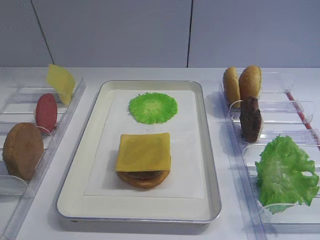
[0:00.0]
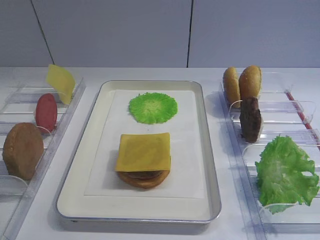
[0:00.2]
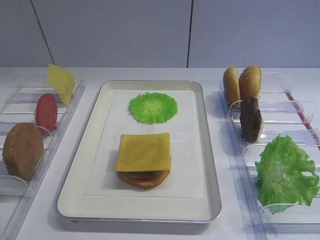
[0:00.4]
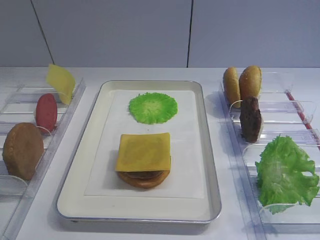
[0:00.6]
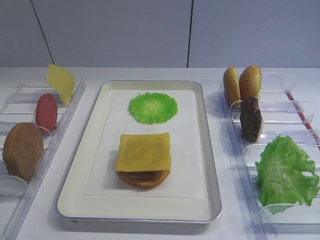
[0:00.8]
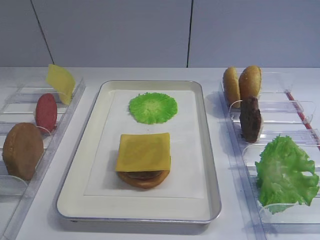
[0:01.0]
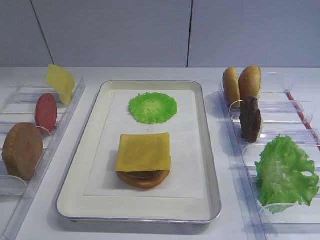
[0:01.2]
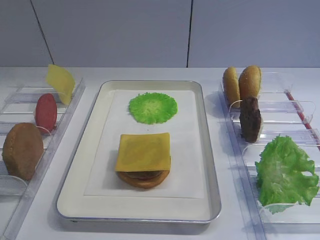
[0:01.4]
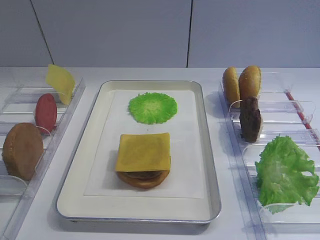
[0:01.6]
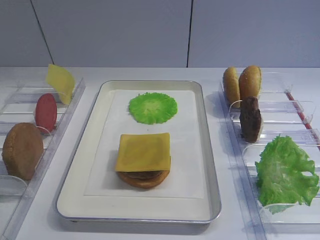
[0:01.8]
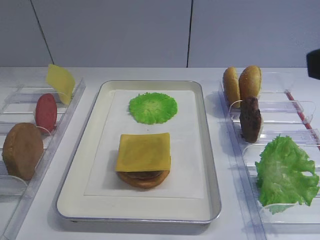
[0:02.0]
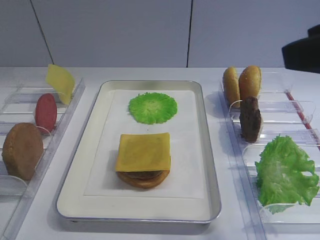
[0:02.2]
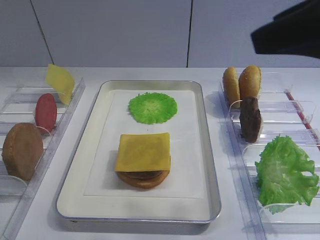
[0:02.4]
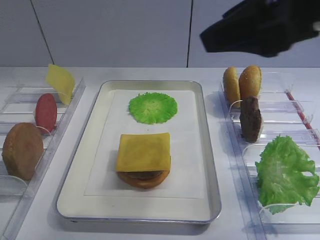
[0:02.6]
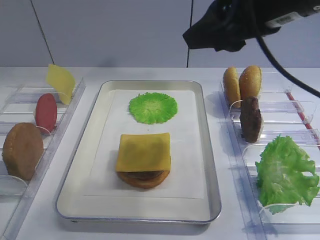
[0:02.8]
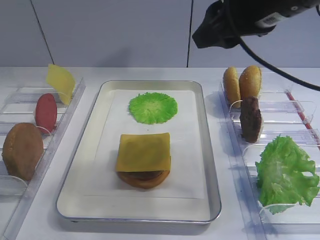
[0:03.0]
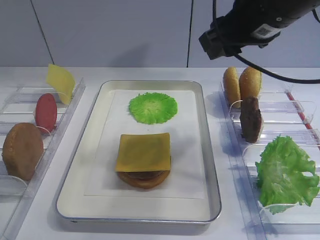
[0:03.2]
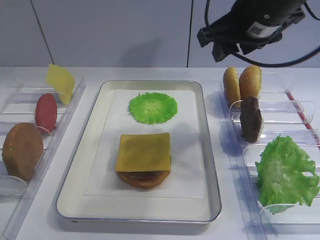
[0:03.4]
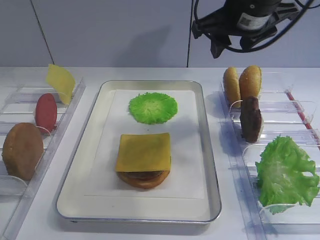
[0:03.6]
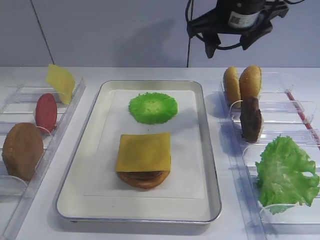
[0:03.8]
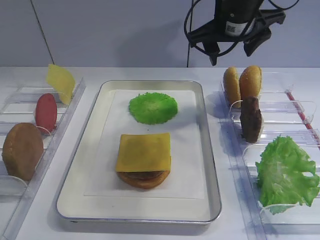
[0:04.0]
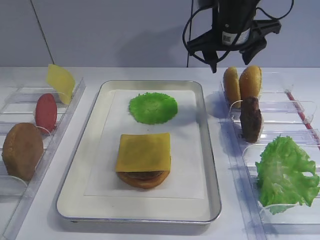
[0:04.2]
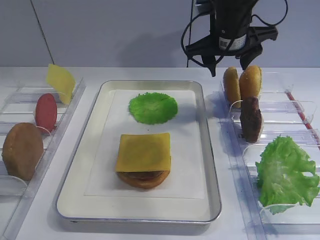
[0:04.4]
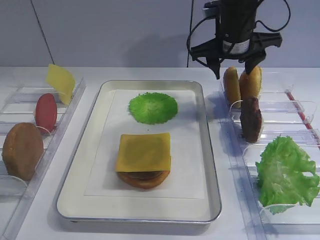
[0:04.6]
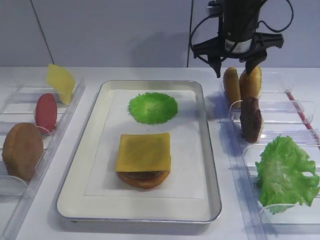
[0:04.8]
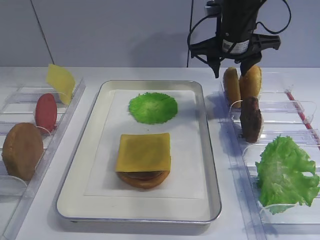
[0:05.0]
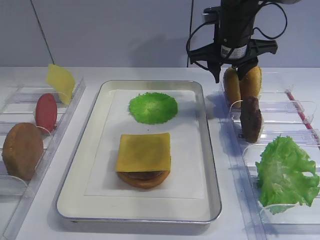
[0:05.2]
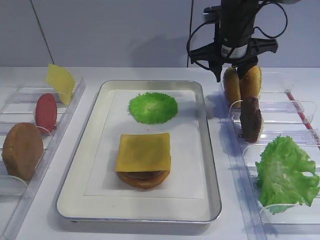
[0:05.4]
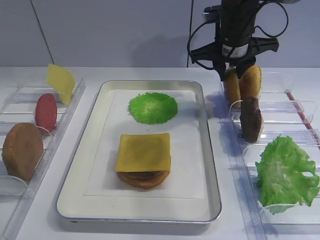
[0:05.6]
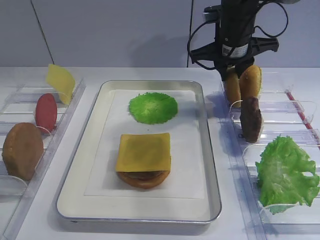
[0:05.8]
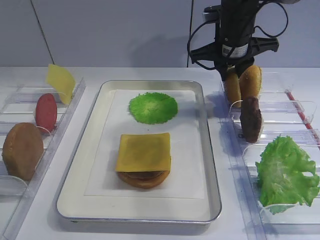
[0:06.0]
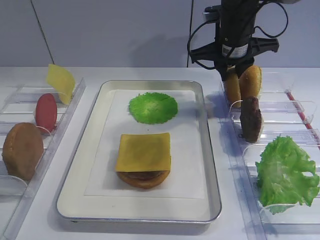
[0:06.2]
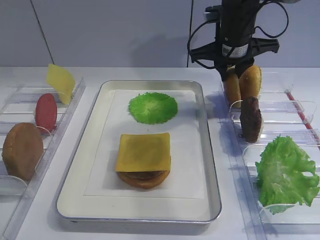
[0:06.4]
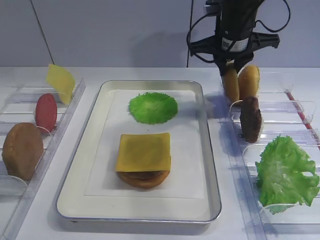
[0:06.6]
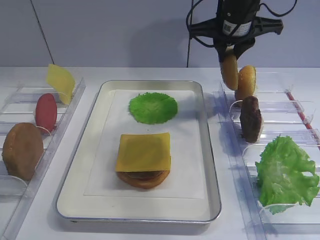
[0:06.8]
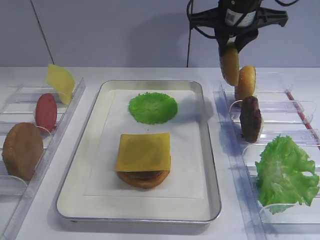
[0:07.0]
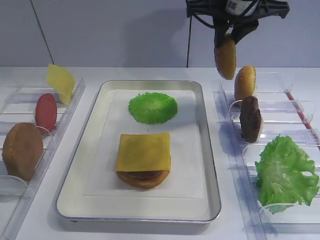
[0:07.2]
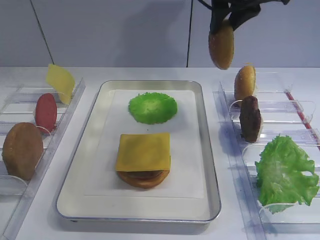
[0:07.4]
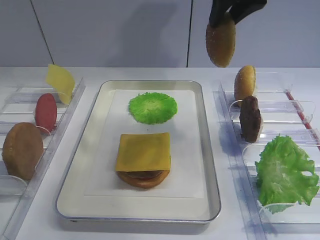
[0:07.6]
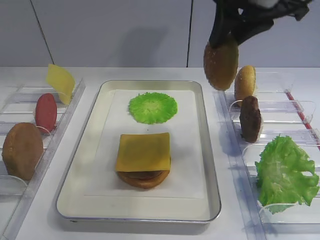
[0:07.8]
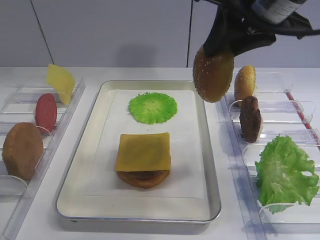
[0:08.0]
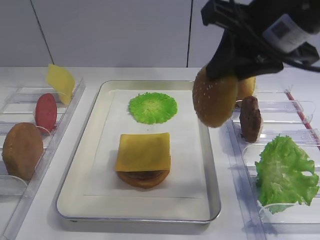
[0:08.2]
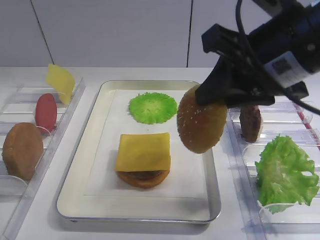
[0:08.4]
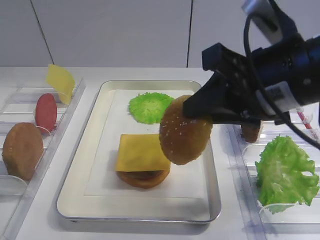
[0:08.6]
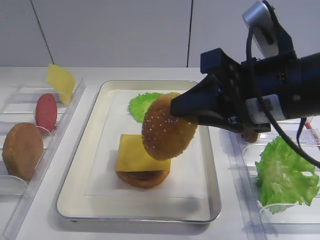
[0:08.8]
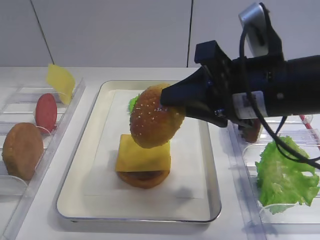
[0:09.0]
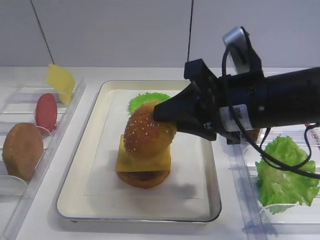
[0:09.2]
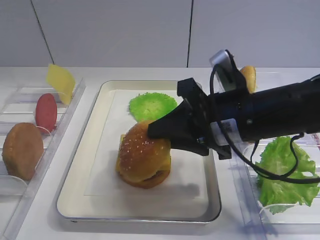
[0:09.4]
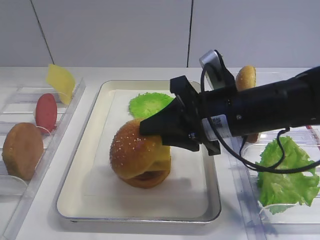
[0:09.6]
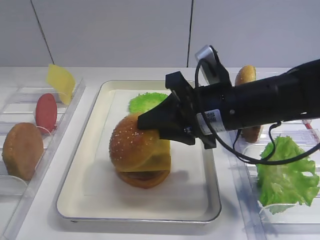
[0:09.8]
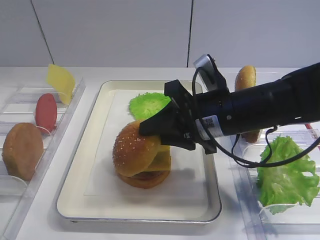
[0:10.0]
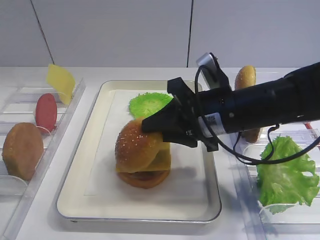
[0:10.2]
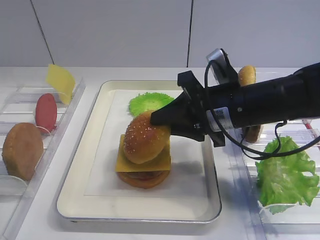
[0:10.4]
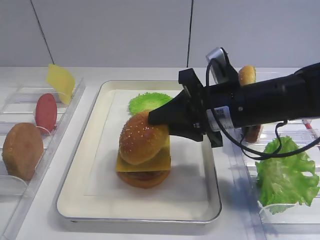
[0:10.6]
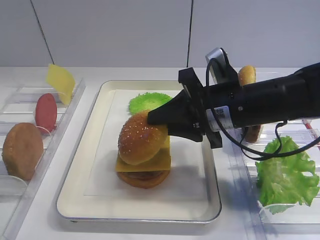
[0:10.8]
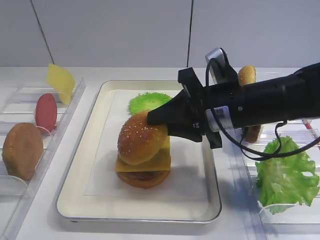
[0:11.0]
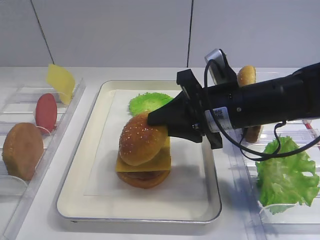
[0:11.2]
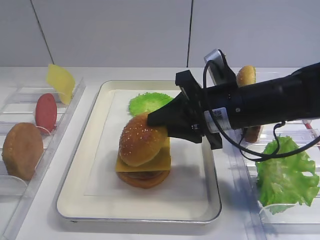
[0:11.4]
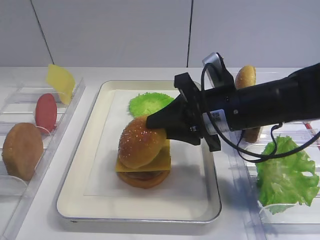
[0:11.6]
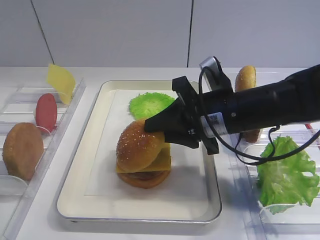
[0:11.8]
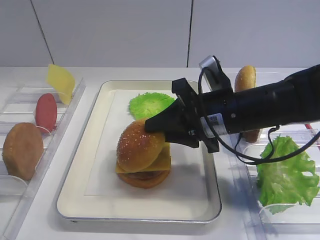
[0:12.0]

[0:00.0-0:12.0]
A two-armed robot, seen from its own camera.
Step, 0:00.0 to 0:07.0: Pick up the hamburger lid with the right gripper.
0:01.6 to 0:03.0: The right gripper shifts approximately 25 cm forward and to the left.
0:03.0 to 0:04.4: The right gripper heads forward and downward, covering about 15 cm.
0:04.4 to 0:06.0: The right gripper closes up.
0:06.0 to 0:07.6: The right gripper goes roughly 15 cm upward and backward.
0:07.6 to 0:09.0: The right gripper heads backward and downward, covering about 20 cm.
0:09.0 to 0:10.4: The right gripper moves downward and forward, roughly 10 cm.
0:10.4 to 0:12.0: Both grippers stay about where they are.

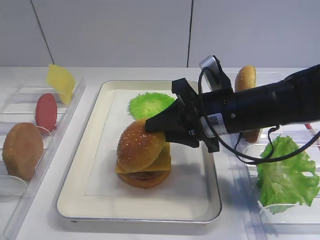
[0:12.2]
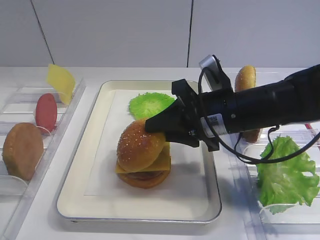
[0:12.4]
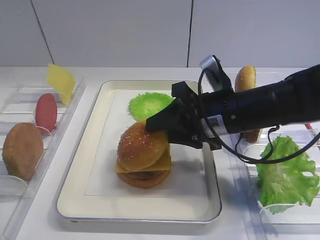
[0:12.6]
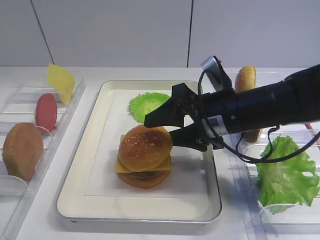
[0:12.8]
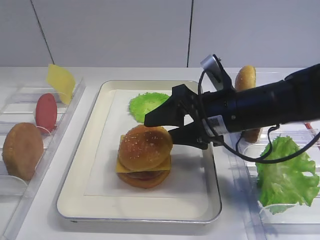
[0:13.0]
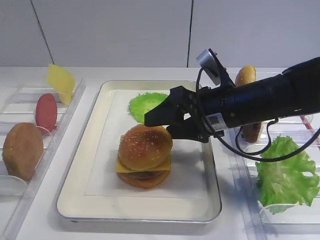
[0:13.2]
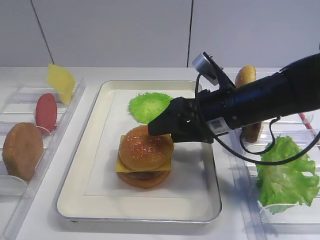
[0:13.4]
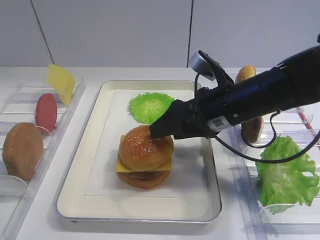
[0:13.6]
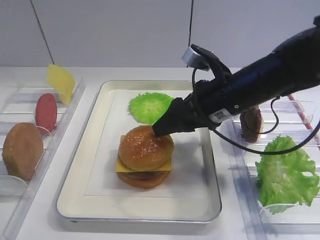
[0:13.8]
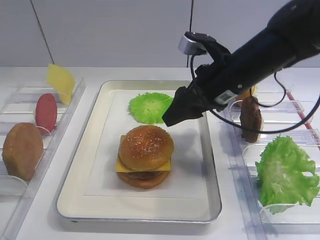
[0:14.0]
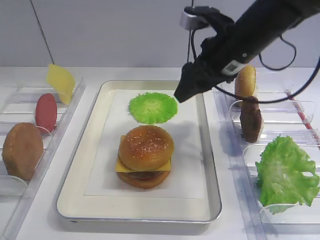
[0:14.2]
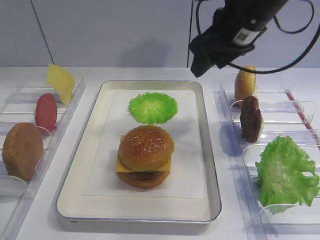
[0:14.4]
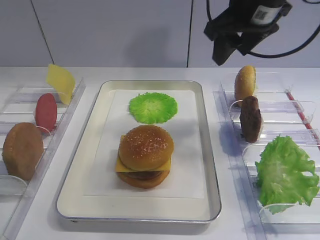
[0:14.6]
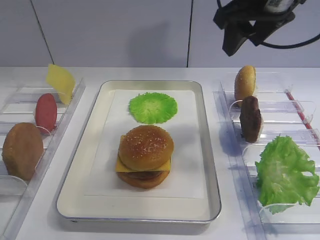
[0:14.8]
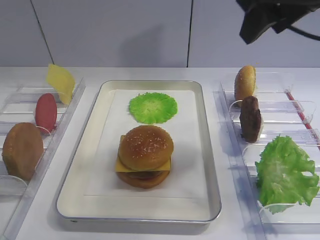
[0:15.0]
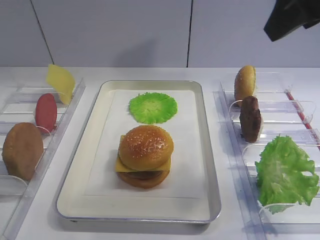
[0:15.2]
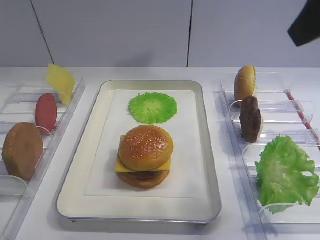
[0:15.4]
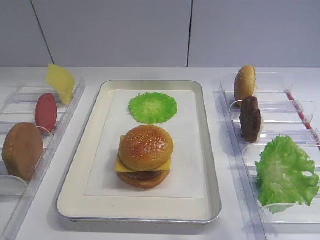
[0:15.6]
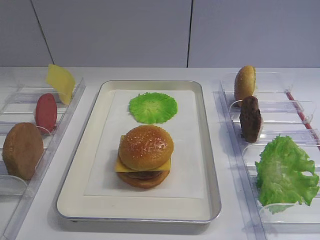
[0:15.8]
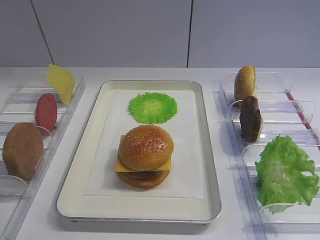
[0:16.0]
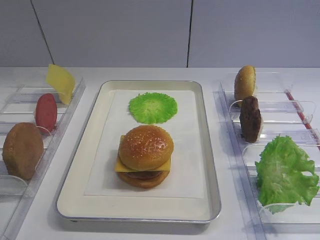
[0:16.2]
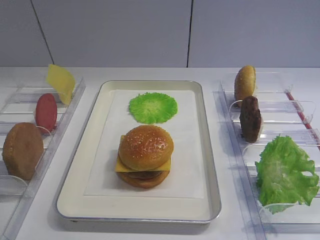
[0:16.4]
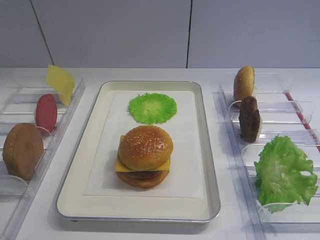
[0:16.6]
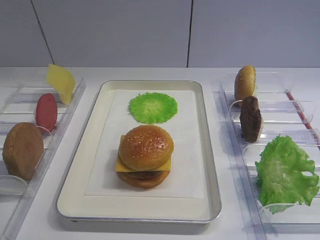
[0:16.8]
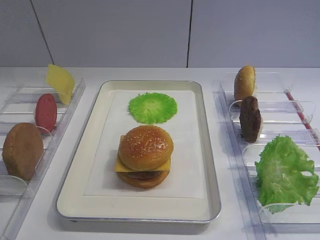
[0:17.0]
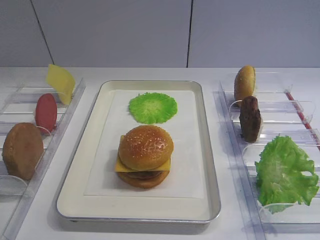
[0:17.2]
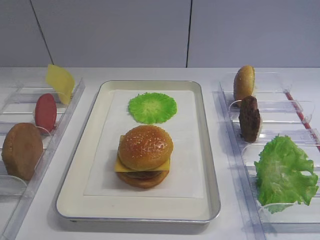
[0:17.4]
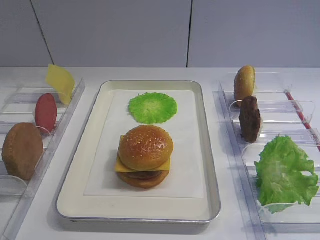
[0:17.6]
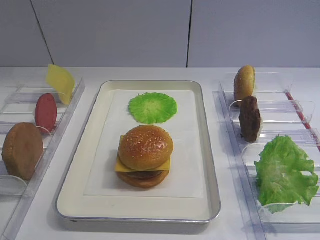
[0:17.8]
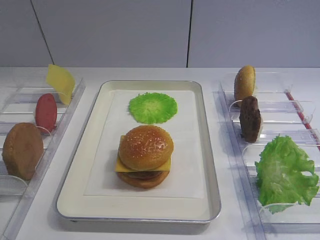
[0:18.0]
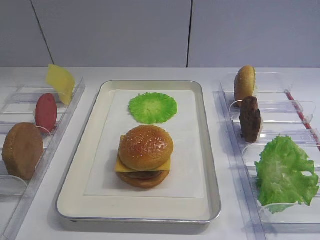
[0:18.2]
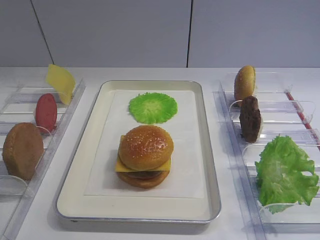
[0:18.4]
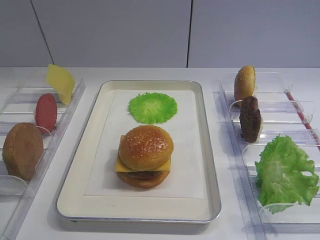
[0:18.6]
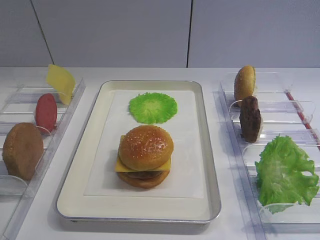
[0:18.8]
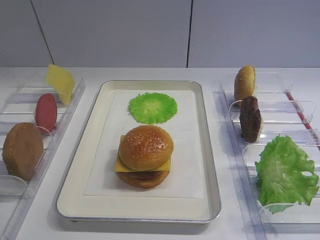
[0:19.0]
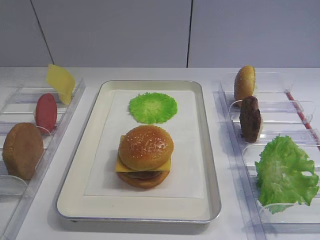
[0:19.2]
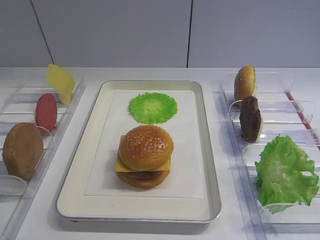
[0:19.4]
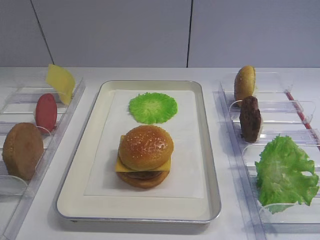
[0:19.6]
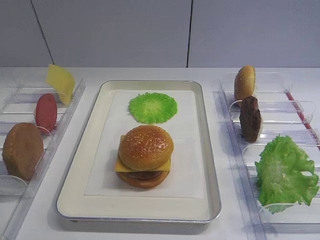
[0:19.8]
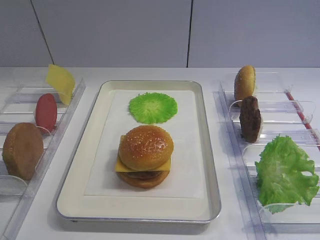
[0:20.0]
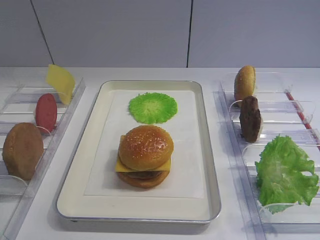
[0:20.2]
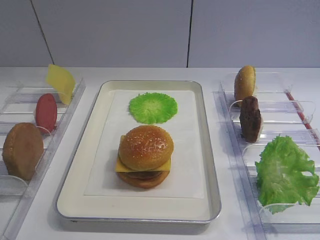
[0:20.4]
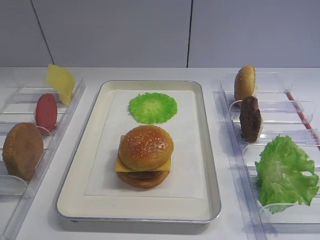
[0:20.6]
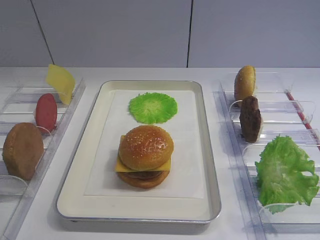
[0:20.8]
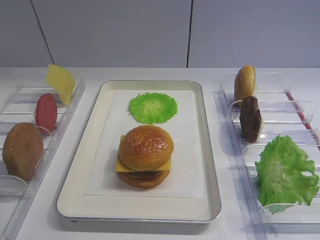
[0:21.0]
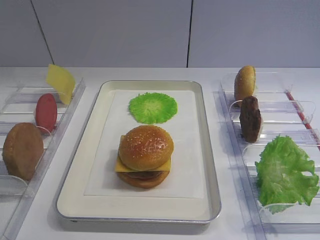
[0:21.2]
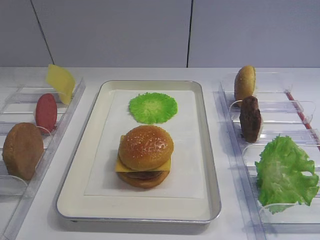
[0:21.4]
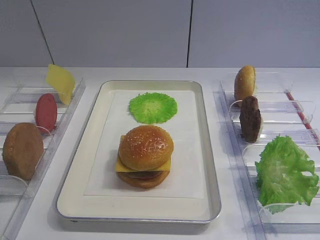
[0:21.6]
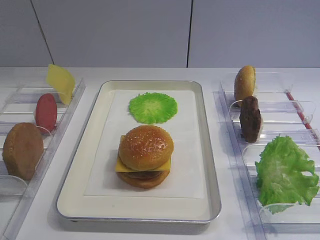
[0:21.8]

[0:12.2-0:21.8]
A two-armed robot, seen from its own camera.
0:12.2 to 0:13.8: The right gripper opens.
0:13.8 to 0:15.4: The right gripper is displaced upward, backward and to the right by some 25 cm.
0:15.4 to 0:17.0: The right gripper travels backward and downward by some 25 cm.

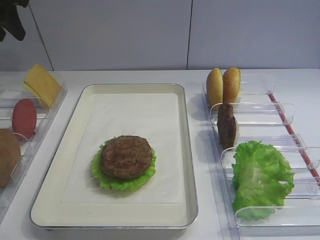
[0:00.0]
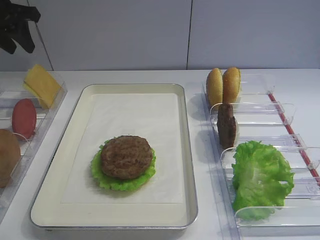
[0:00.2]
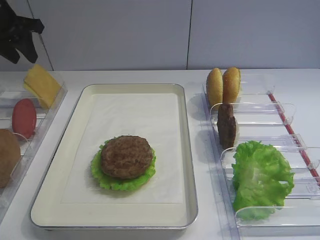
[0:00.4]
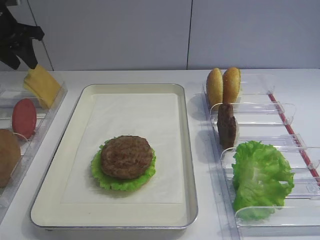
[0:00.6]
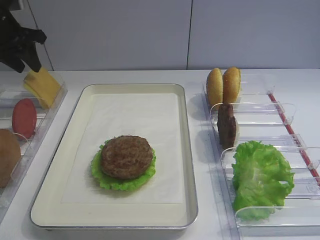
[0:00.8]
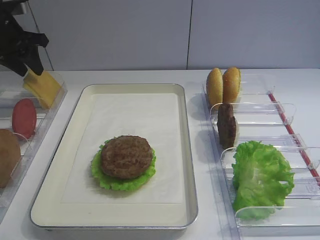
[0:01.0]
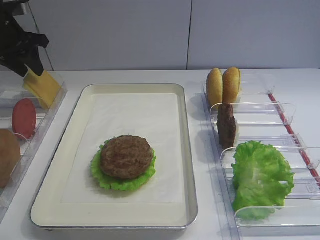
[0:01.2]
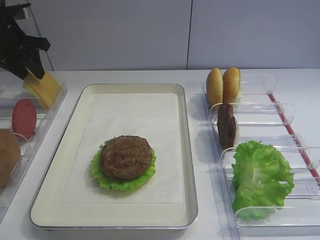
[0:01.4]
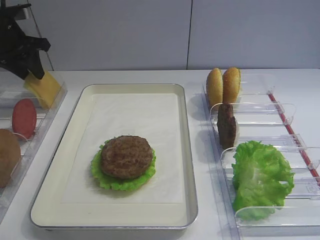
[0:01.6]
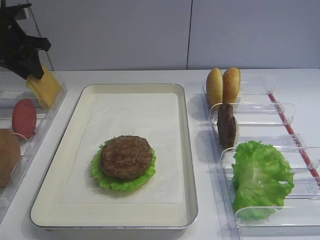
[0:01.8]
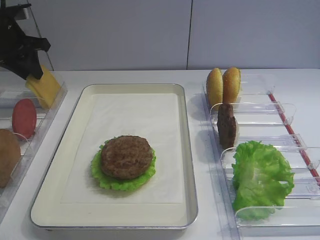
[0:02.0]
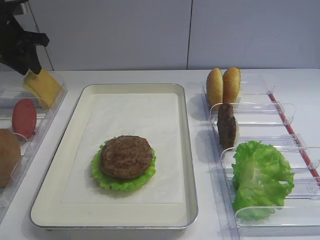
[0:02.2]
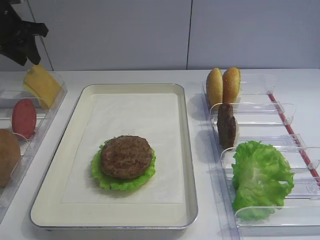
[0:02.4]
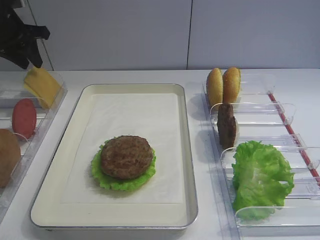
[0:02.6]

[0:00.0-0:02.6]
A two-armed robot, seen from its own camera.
0:00.0 to 0:01.2: The left gripper goes about 10 cm downward and forward.
0:01.2 to 0:02.6: The grippers move only a little.
